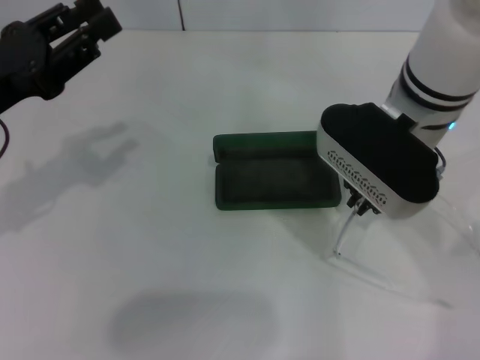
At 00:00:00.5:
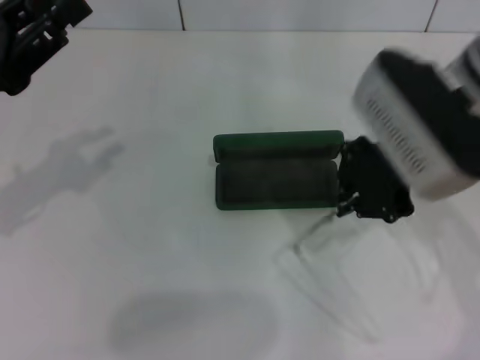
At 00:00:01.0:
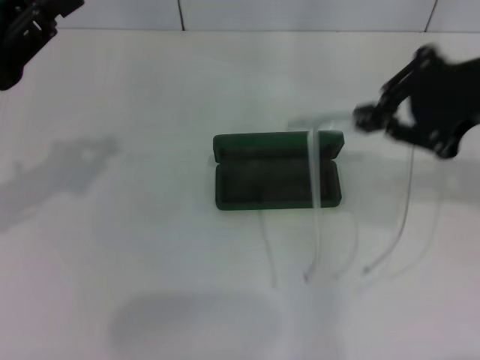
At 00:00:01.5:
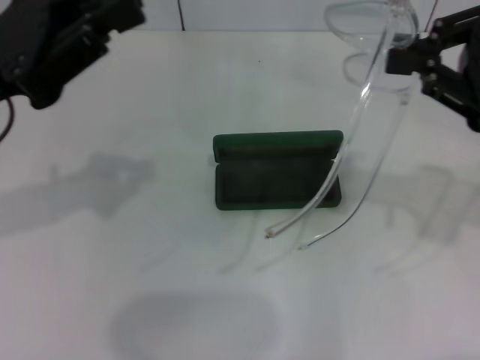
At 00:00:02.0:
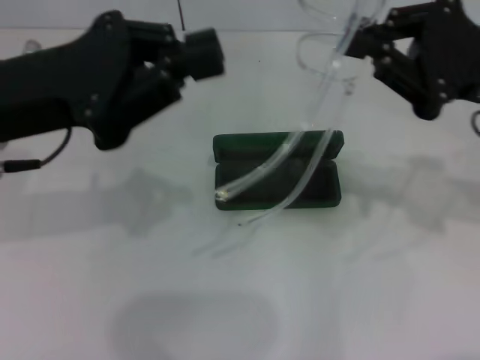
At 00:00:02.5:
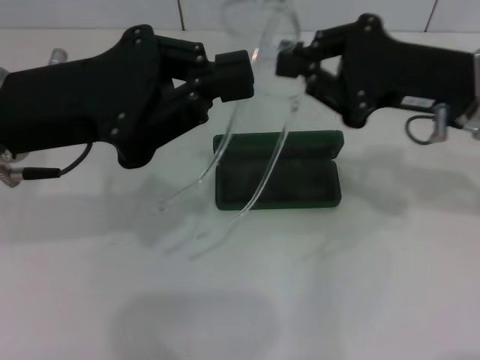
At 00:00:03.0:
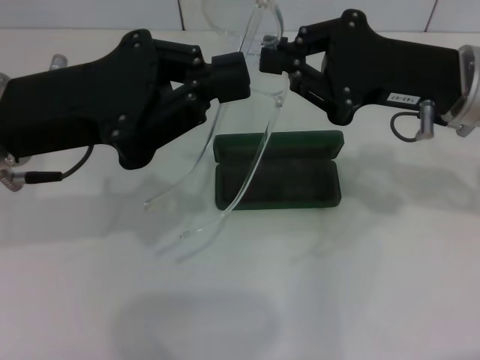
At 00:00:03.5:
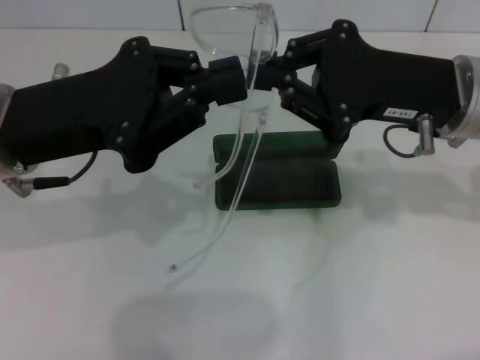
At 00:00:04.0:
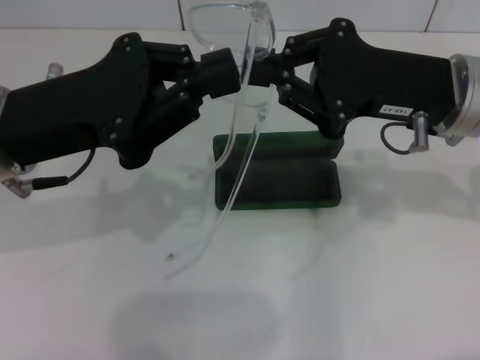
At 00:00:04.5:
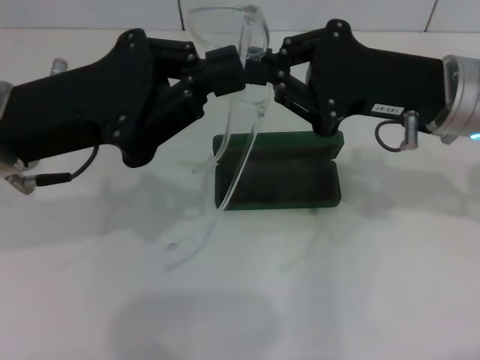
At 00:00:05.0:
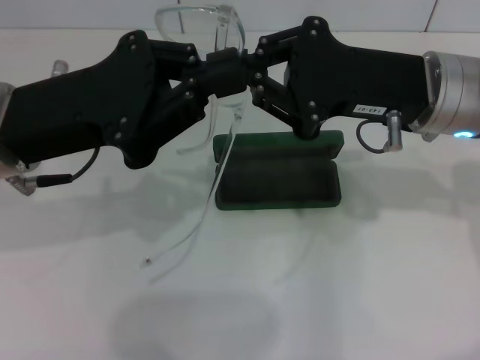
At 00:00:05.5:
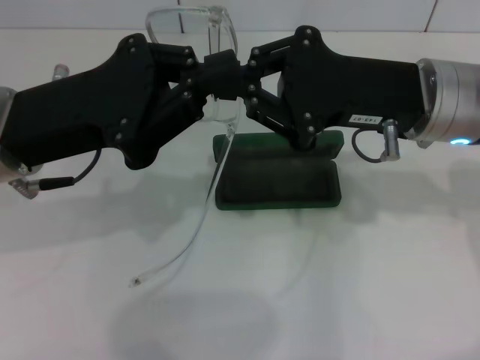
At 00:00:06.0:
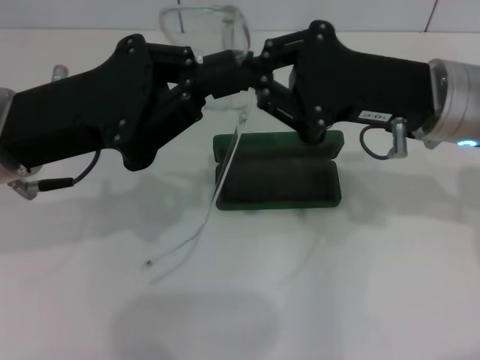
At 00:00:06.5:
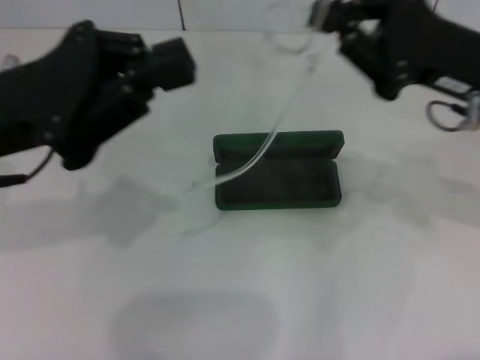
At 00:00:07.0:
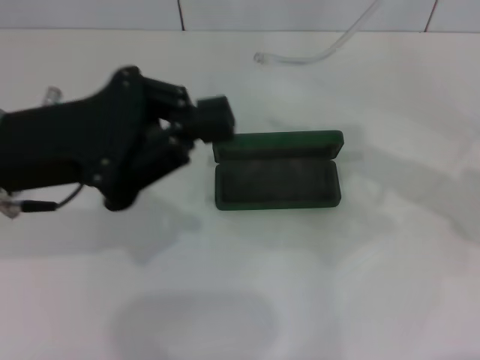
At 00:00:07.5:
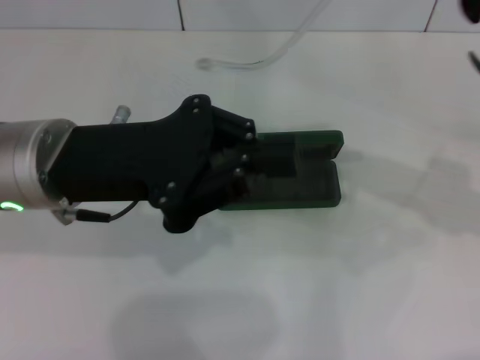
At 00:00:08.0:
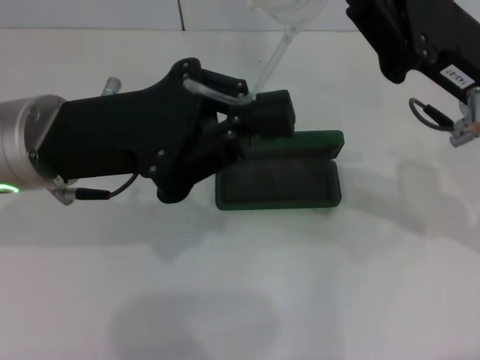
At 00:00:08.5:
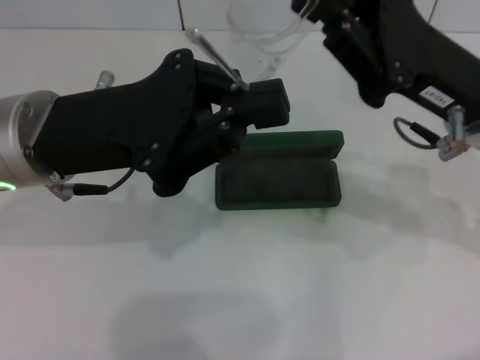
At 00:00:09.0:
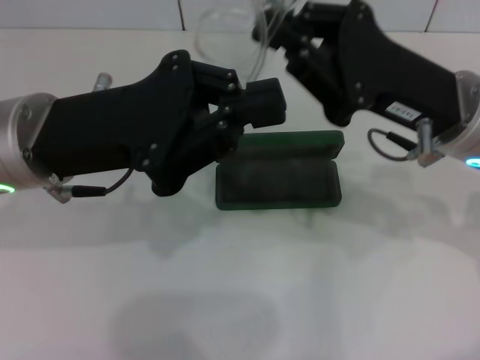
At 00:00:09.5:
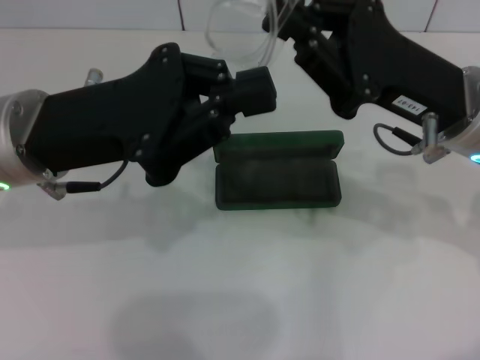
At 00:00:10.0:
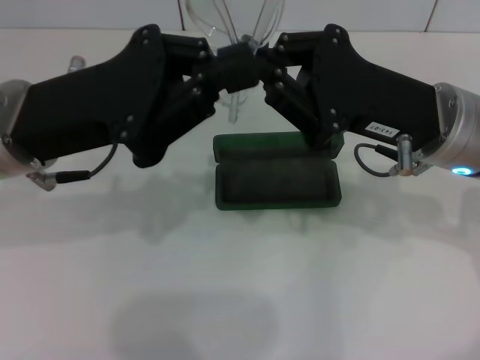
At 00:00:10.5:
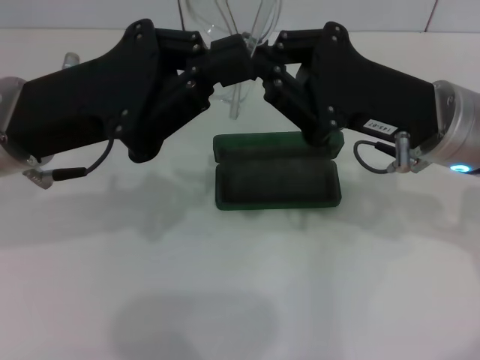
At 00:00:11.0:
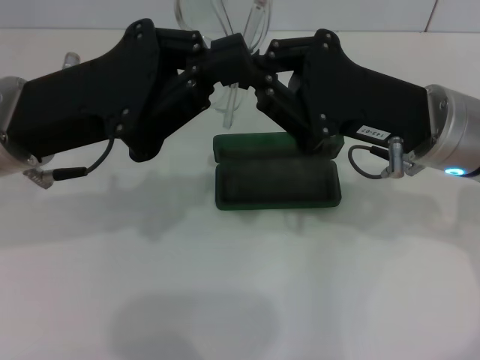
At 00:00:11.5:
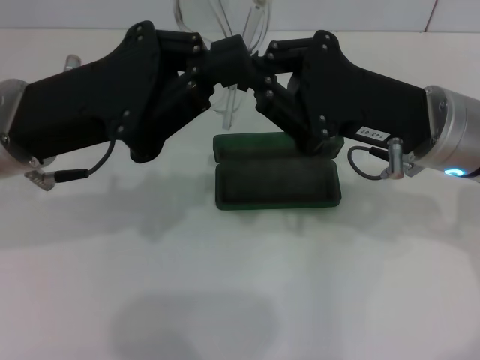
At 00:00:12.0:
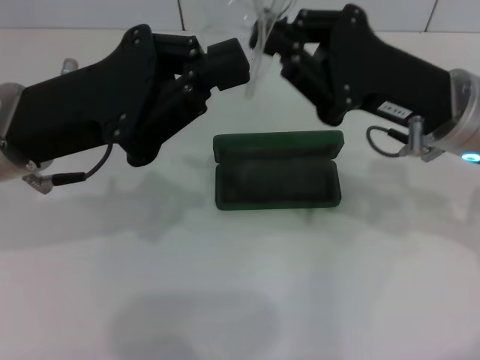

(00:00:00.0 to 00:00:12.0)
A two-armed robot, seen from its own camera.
Step, 00:00:00.0 - 00:00:09.5: Fold the frame with your left hand.
00:00:00.0 - 00:00:02.0: The left gripper moves to the right and upward, approximately 10 cm, and closes its fingers, while the right gripper shifts approximately 15 cm to the right.
00:00:02.0 - 00:00:04.0: The right gripper heads to the left, covering about 5 cm.
00:00:04.0 - 00:00:06.0: The grippers make only small movements.
00:00:06.0 - 00:00:08.0: The right gripper goes to the right and returns, approximately 10 cm each way.
00:00:10.0 - 00:00:12.0: Neither gripper changes place.

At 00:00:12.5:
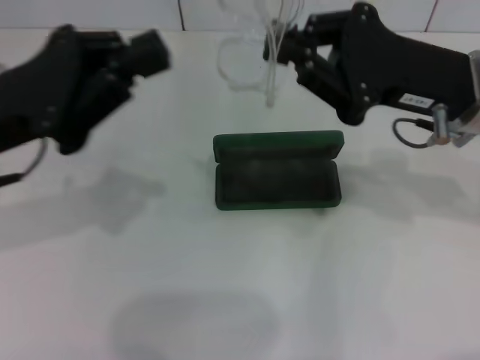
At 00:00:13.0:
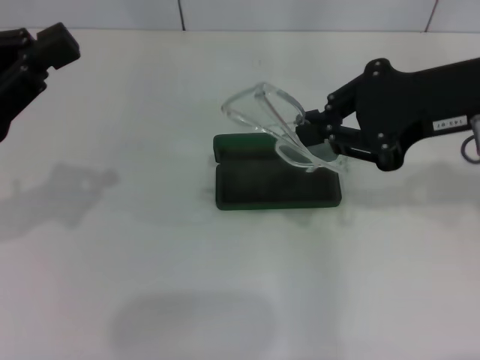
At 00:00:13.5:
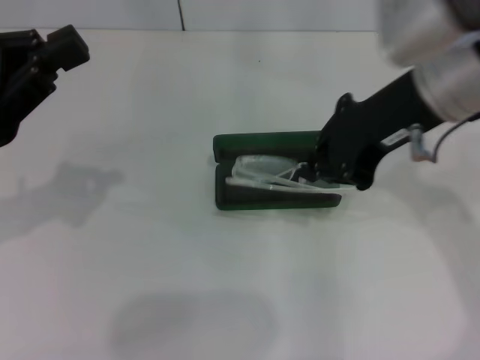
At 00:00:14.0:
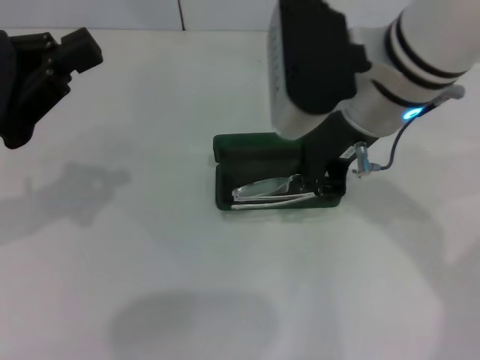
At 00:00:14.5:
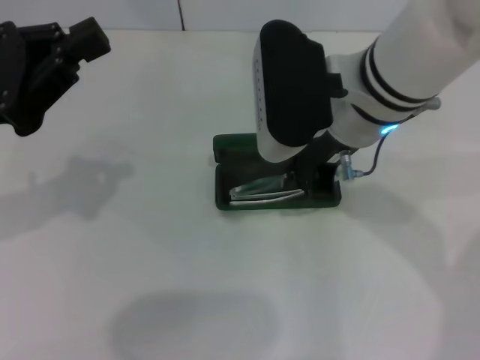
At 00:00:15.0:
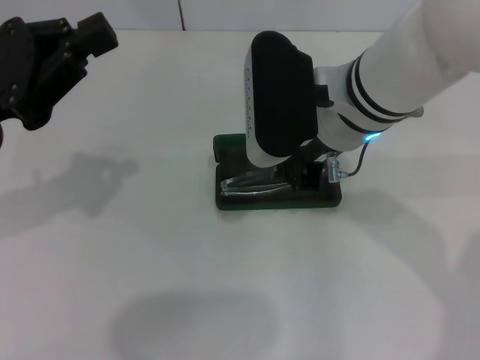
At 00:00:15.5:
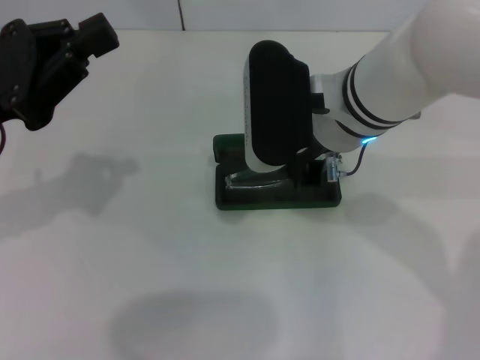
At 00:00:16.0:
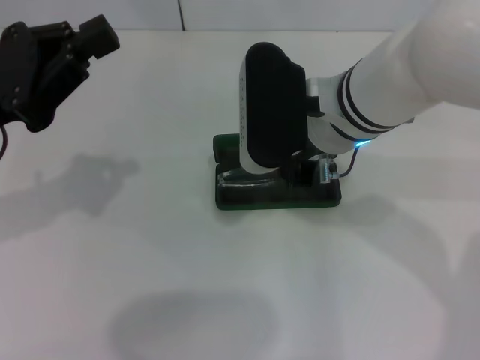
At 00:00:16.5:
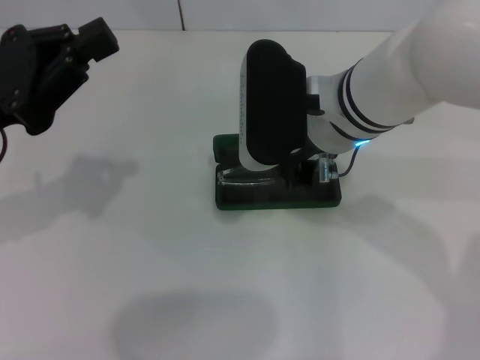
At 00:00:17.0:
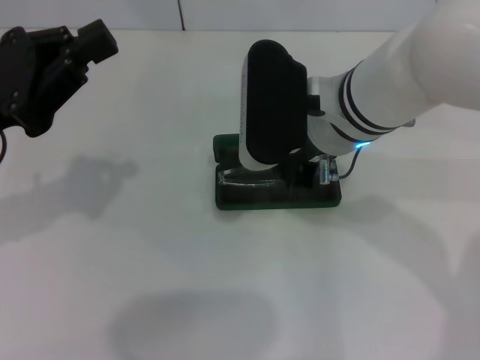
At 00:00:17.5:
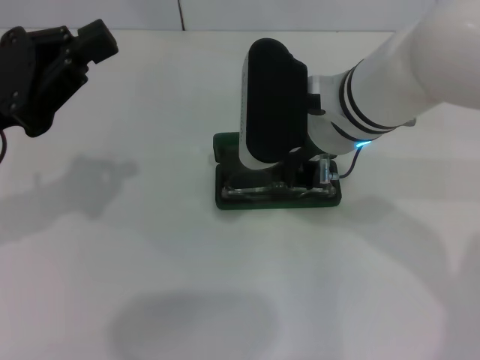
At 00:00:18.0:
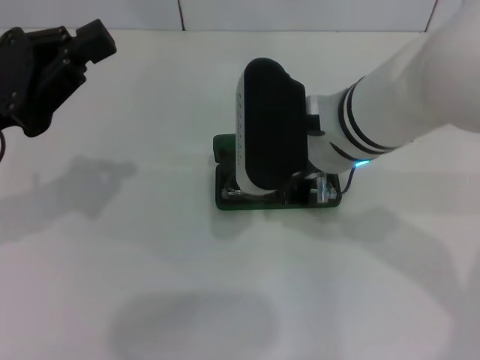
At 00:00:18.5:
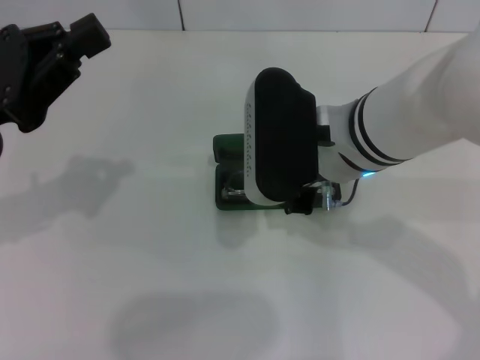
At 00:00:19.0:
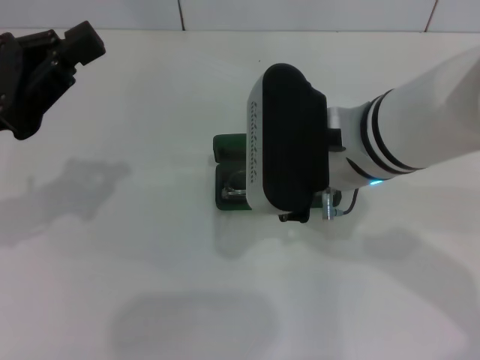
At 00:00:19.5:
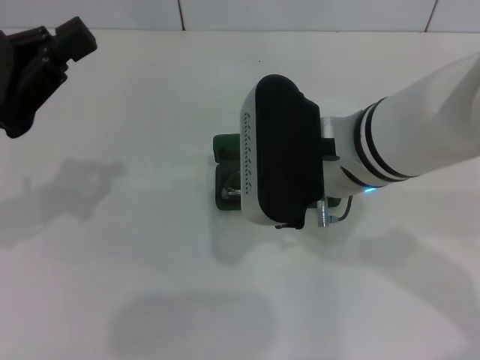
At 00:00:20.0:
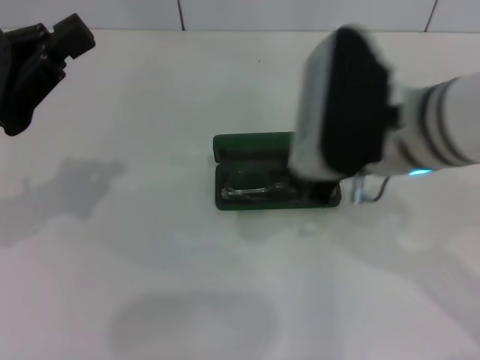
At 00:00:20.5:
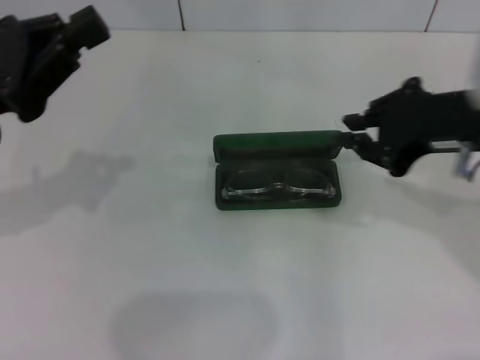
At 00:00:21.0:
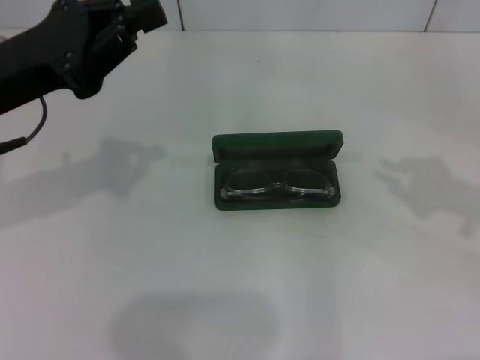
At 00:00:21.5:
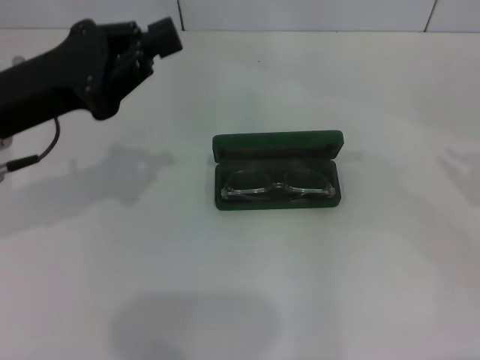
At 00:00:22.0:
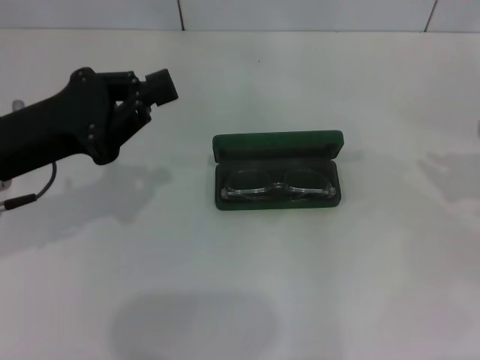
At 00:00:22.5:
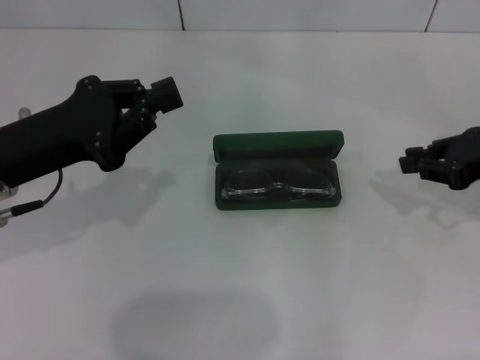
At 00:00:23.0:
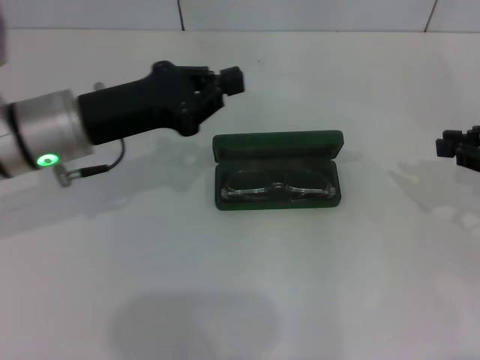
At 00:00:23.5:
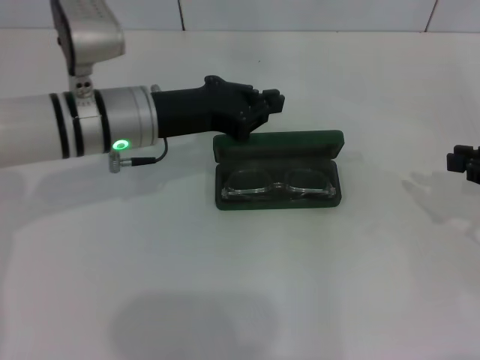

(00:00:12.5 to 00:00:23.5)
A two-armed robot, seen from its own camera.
Step, 00:00:12.5 - 00:00:17.5: Put the glasses into the case with your right hand.
00:00:12.5 - 00:00:14.5: The right gripper moves to the left, roughly 10 cm.
00:00:14.5 - 00:00:18.0: The grippers move only a little.
00:00:18.0 - 00:00:20.0: The right gripper ends up approximately 5 cm from where it was.
00:00:20.0 - 00:00:21.5: The left gripper shifts by some 5 cm, while the right gripper shifts about 30 cm to the right.
00:00:21.5 - 00:00:23.5: The right gripper travels to the left and downward by roughly 5 cm; the left gripper heads to the right and forward, covering approximately 10 cm.

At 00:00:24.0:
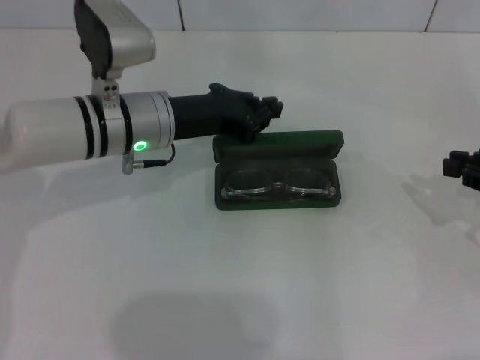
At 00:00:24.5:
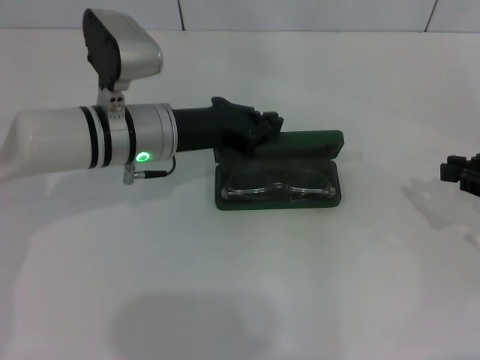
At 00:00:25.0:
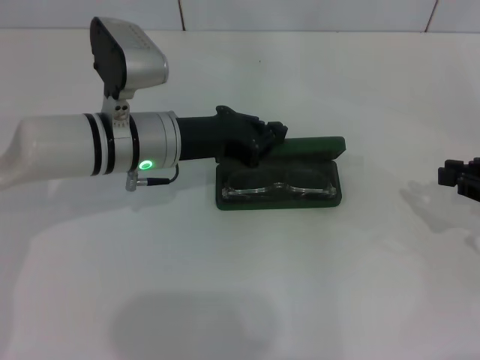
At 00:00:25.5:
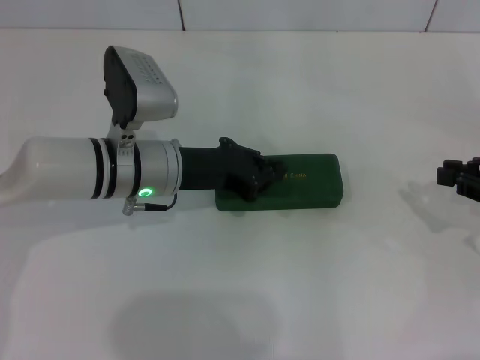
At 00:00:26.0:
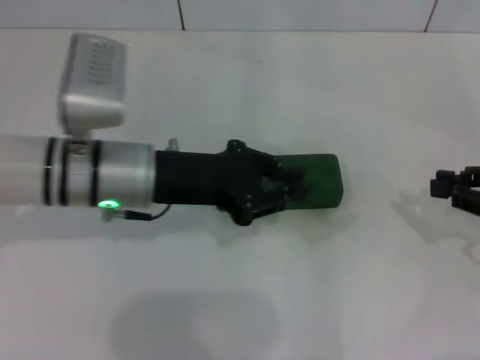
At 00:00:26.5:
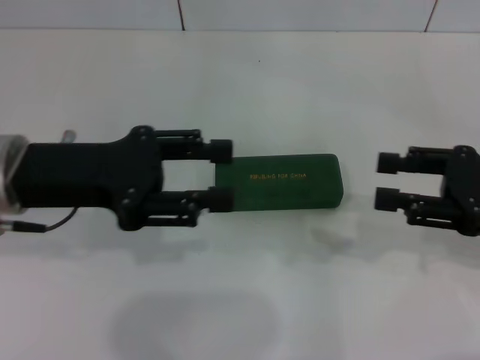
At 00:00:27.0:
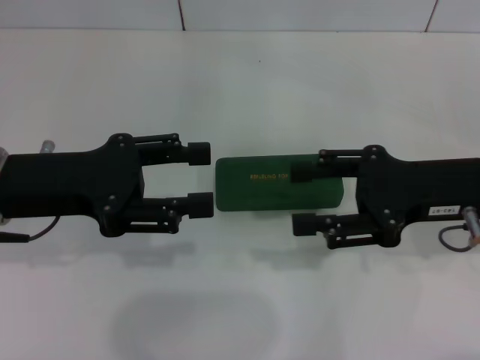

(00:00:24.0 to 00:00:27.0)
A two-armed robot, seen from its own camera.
00:00:24.0 - 00:00:25.5: The grippers make only small movements.
00:00:25.5 - 00:00:27.0: The right gripper moves to the left, roughly 10 cm, and opens up. The left gripper heads to the left, upward and backward, covering approximately 15 cm, and opens up.
